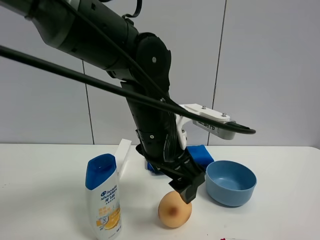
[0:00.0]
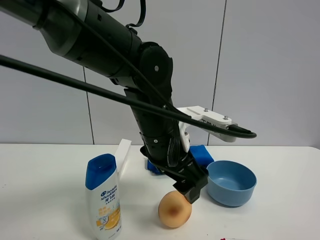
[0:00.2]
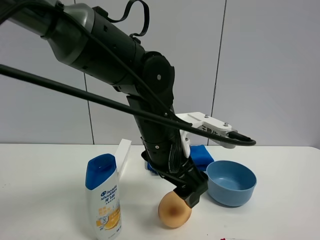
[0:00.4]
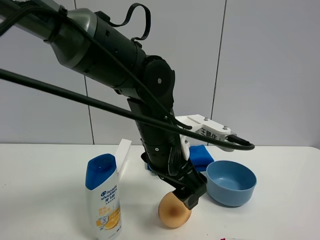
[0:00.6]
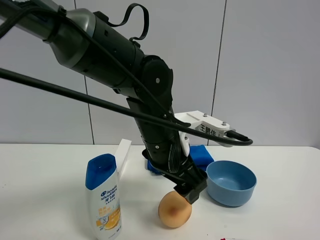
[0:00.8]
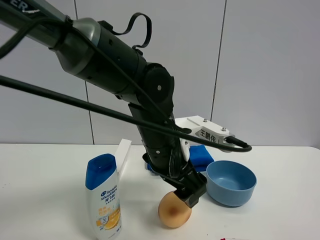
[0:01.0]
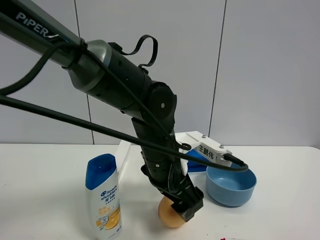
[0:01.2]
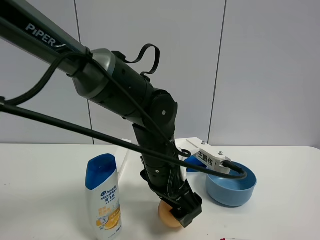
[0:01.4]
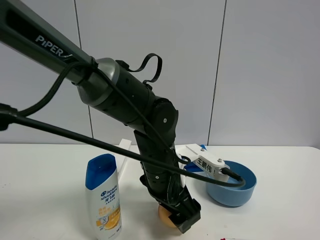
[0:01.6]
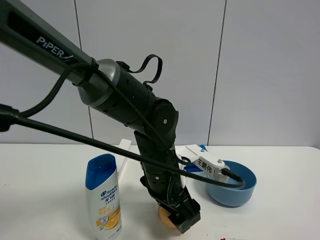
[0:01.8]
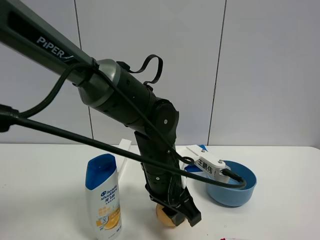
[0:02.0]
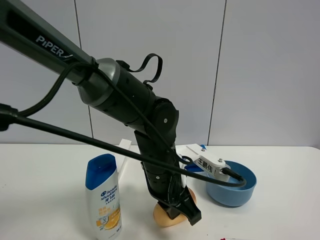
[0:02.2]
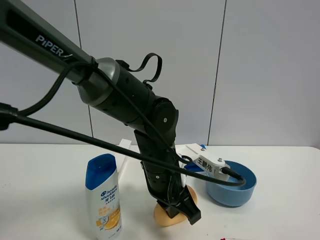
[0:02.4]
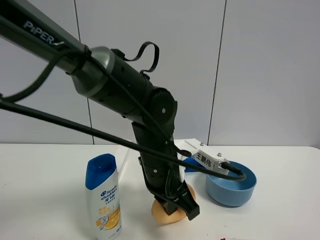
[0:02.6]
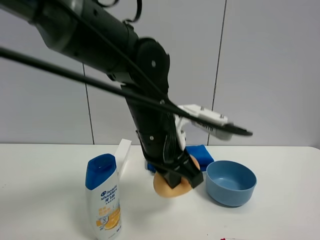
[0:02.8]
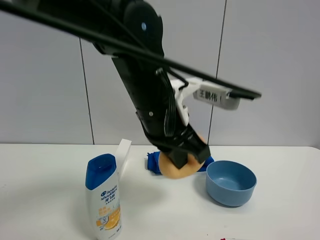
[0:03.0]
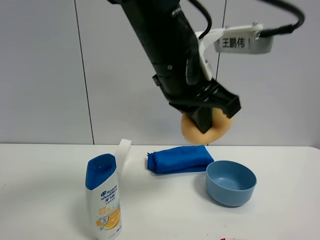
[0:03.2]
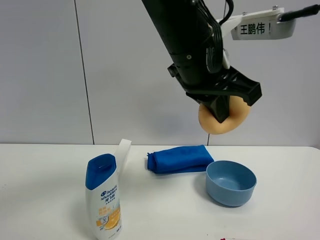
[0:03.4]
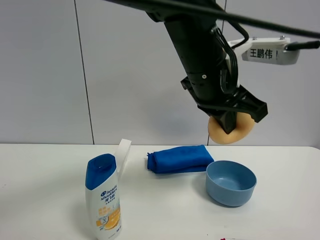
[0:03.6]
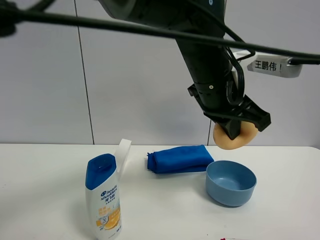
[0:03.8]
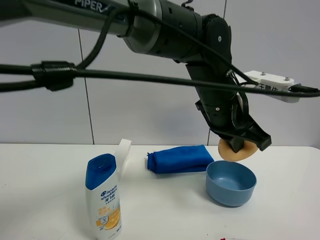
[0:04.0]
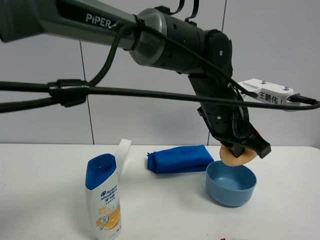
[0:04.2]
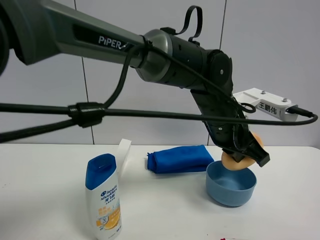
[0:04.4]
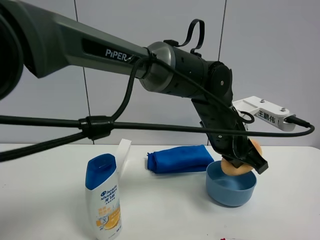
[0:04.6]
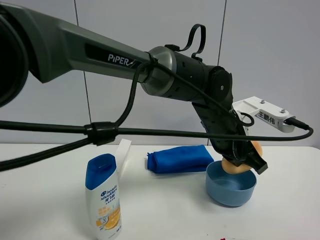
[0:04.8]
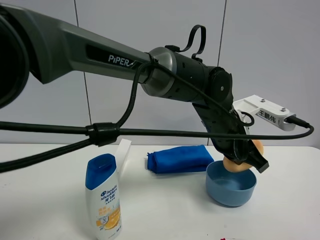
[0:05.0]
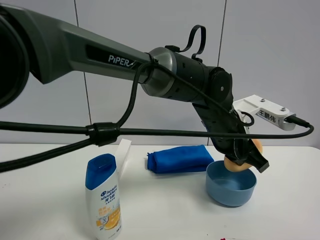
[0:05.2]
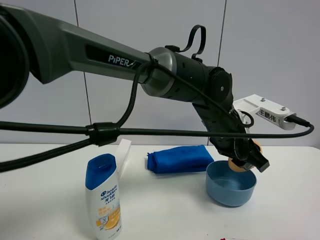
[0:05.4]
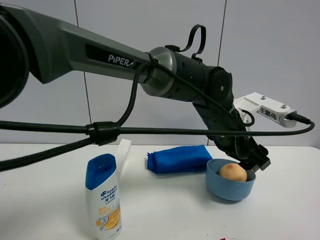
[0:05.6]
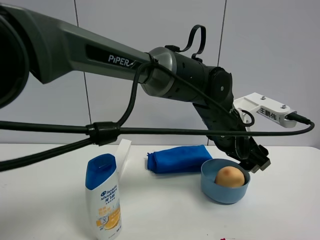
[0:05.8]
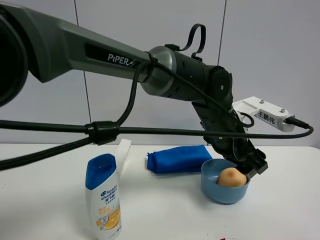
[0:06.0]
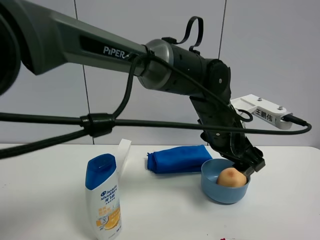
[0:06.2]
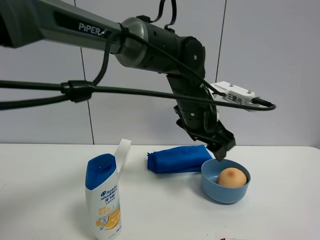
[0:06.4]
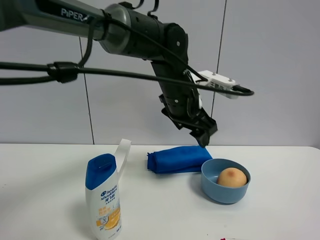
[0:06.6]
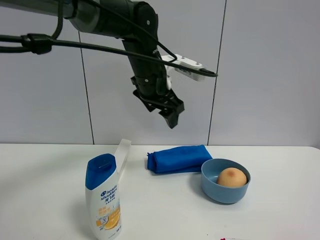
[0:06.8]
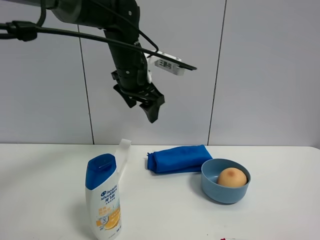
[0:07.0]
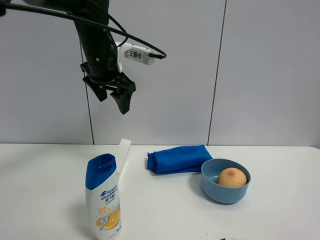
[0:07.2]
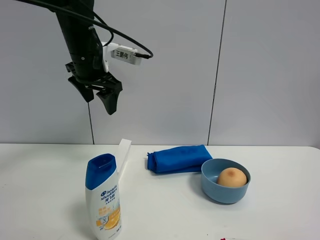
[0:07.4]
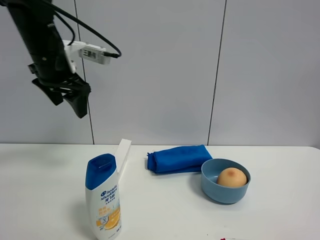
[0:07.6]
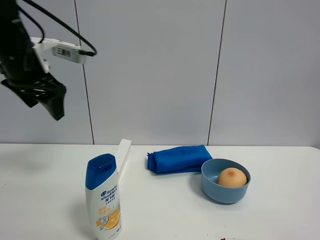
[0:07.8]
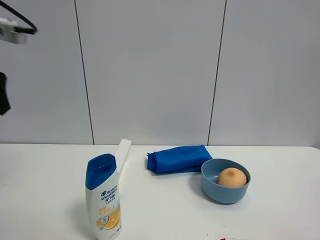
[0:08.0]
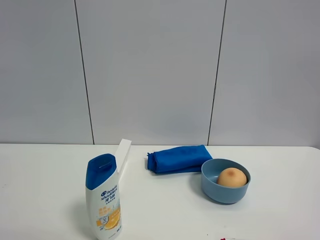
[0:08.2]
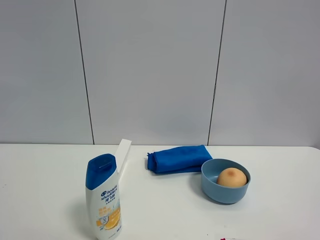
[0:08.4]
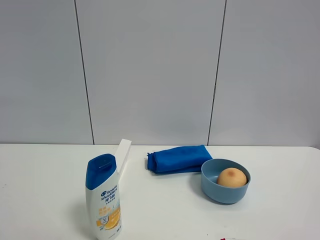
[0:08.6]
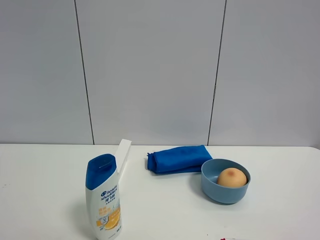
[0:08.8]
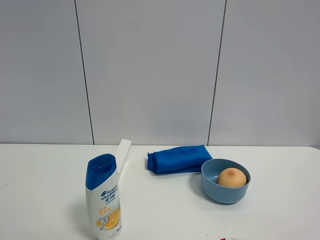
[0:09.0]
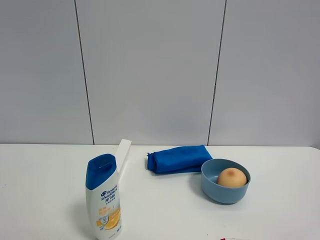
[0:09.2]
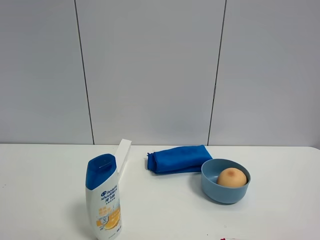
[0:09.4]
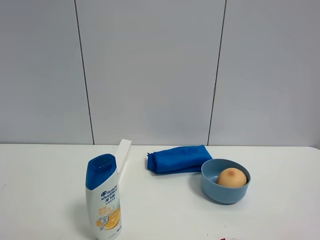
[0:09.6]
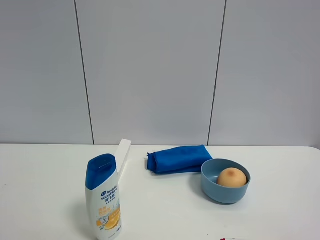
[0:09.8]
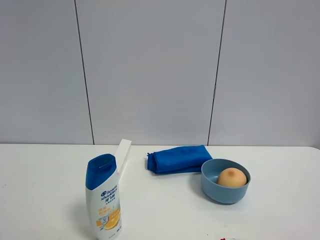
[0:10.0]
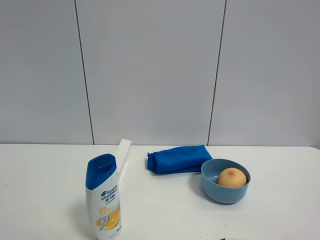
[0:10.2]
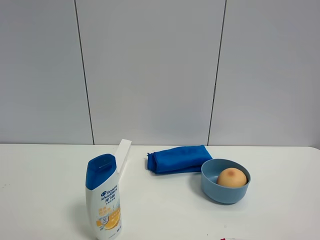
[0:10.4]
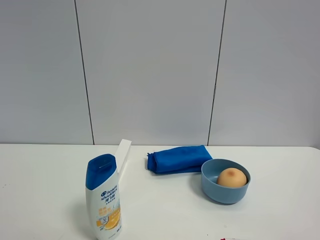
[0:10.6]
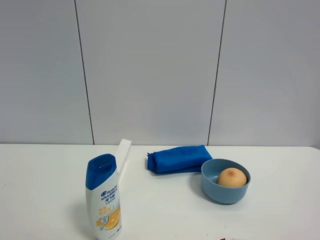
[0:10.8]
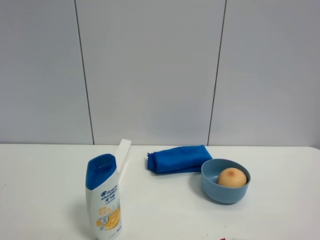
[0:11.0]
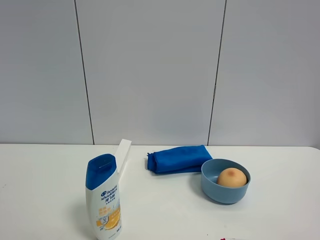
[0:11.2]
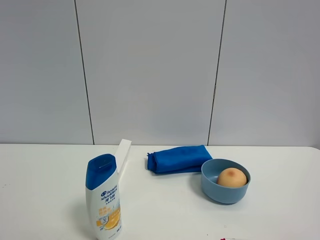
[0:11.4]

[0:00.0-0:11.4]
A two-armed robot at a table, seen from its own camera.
Task of the whole recording: the gripper move the object.
Step, 0:00.0 to 0:02.0: Grasp the egg yolk pastry with the left gripper.
Step, 0:02.2 to 0:05.4: Place the egg yolk pastry into the blue bowl with the left gripper.
0:00.0 to 0:01.4: The left gripper is displaced downward by roughly 5 cm.
0:01.4 to 0:02.8: The left gripper is displaced upward by about 10 cm, and closes up.
0:02.8 to 0:04.2: The left gripper is displaced to the right by about 10 cm.
0:04.2 to 0:05.6: The left gripper opens up.
0:05.6 to 0:07.2: The left gripper shifts some 25 cm to the left and upward.
0:07.2 to 0:08.6: The left gripper moves backward and to the left, about 40 cm.

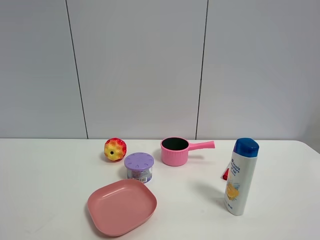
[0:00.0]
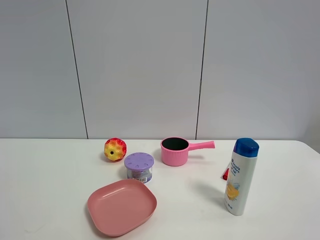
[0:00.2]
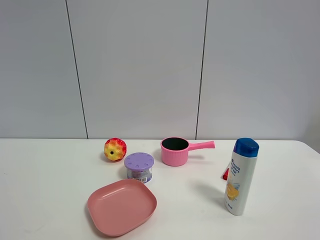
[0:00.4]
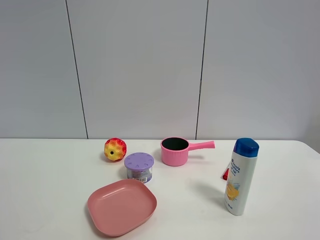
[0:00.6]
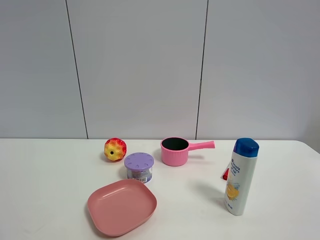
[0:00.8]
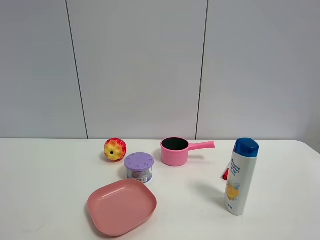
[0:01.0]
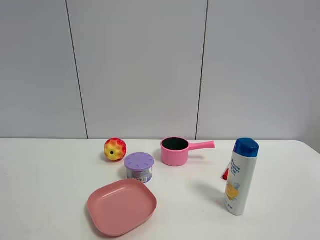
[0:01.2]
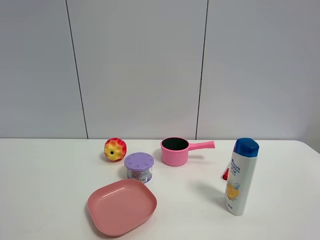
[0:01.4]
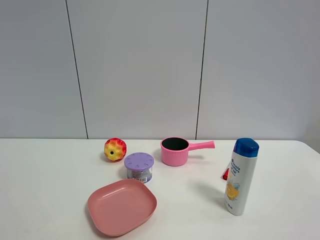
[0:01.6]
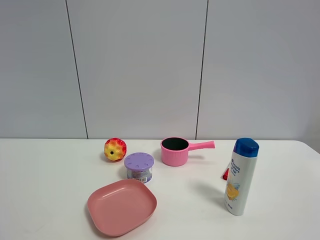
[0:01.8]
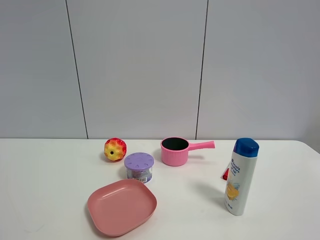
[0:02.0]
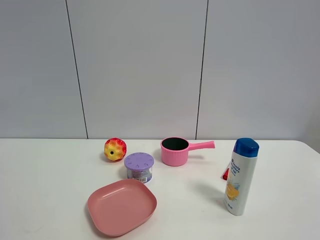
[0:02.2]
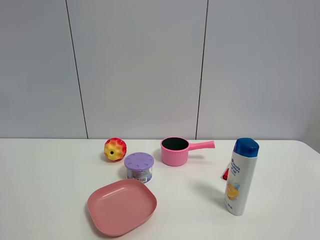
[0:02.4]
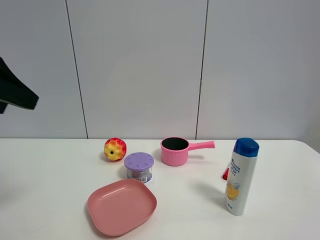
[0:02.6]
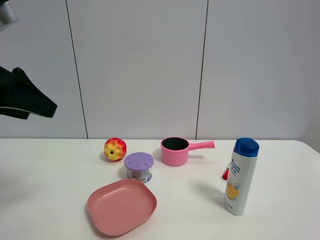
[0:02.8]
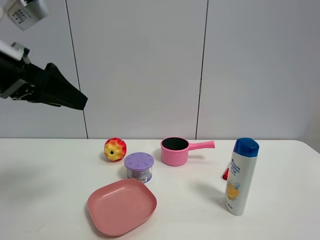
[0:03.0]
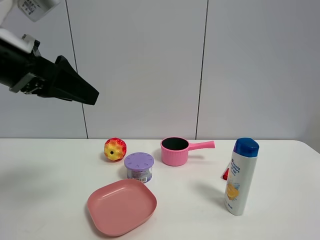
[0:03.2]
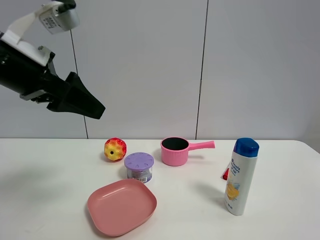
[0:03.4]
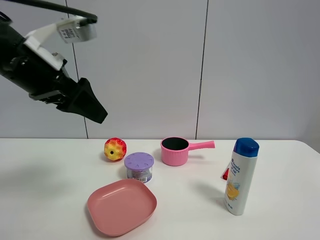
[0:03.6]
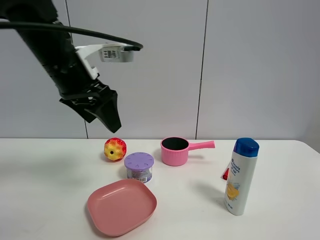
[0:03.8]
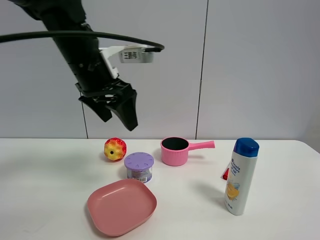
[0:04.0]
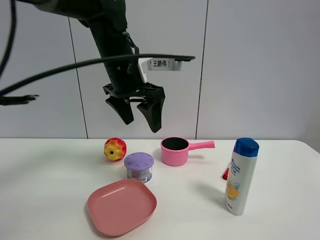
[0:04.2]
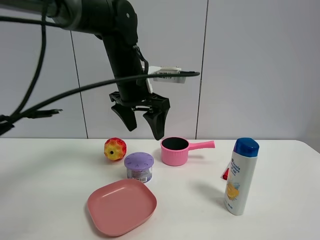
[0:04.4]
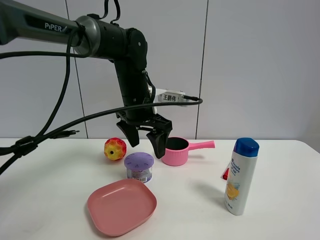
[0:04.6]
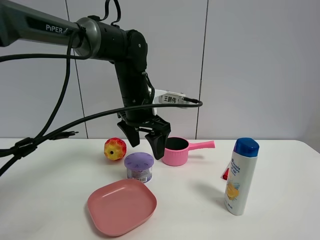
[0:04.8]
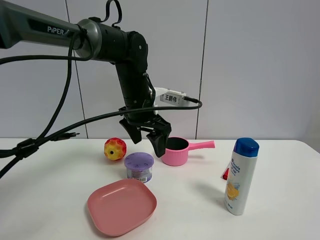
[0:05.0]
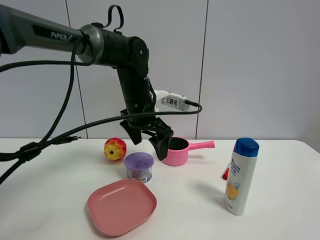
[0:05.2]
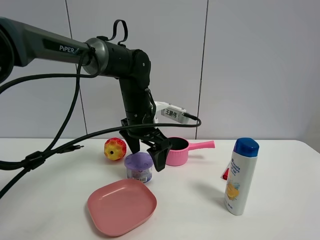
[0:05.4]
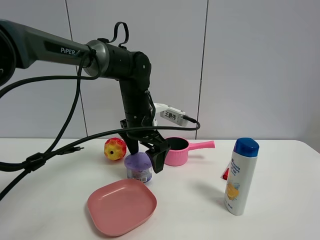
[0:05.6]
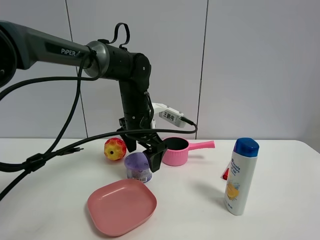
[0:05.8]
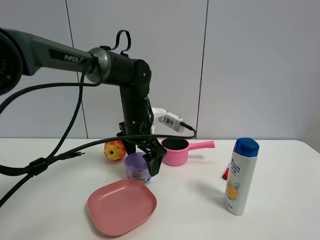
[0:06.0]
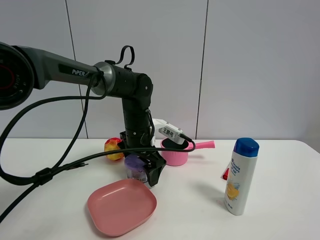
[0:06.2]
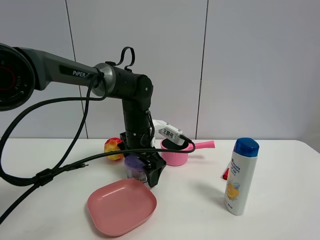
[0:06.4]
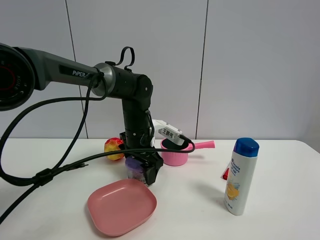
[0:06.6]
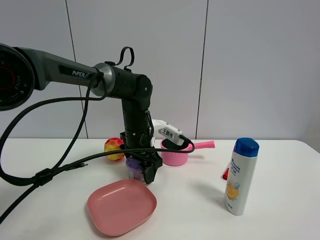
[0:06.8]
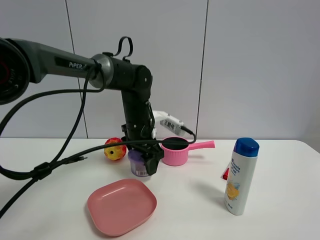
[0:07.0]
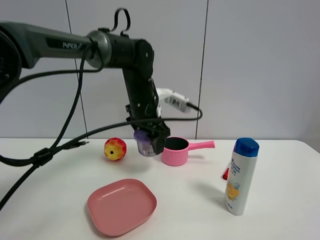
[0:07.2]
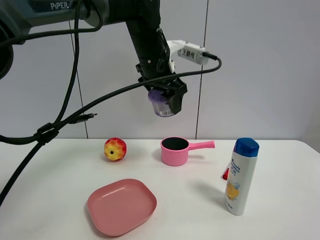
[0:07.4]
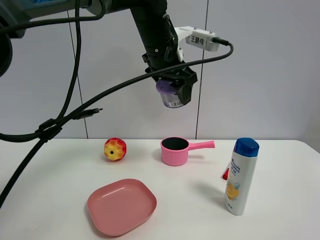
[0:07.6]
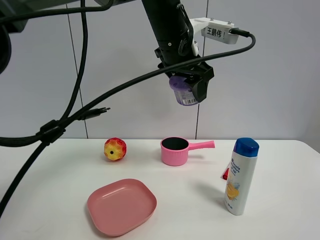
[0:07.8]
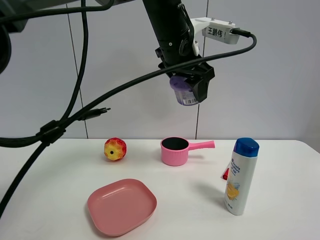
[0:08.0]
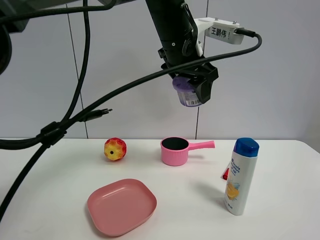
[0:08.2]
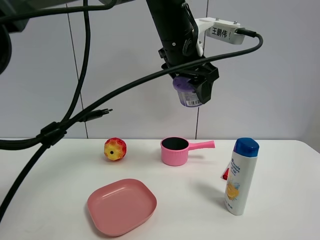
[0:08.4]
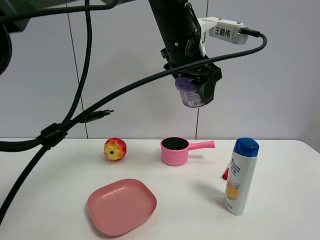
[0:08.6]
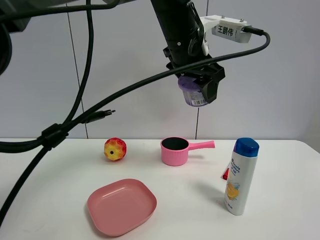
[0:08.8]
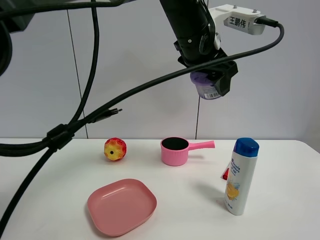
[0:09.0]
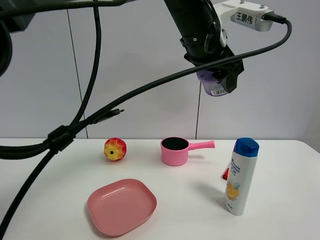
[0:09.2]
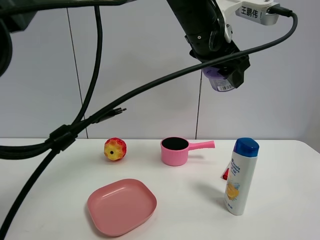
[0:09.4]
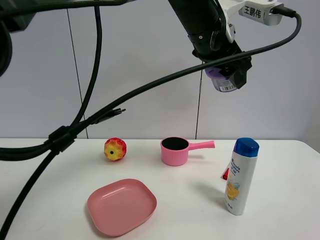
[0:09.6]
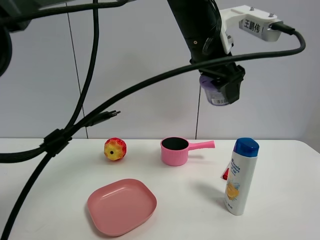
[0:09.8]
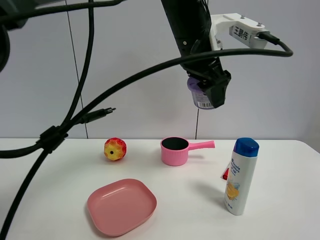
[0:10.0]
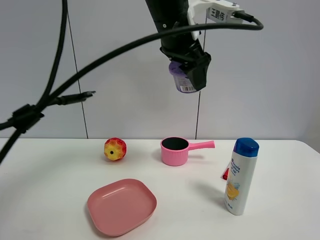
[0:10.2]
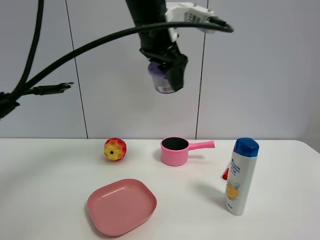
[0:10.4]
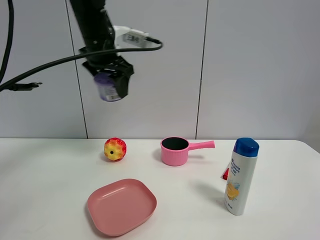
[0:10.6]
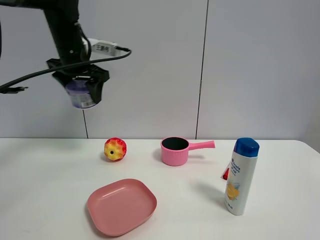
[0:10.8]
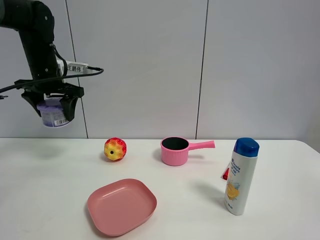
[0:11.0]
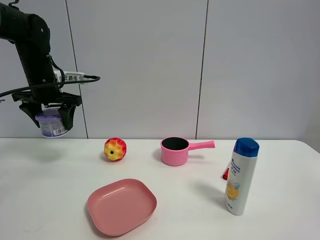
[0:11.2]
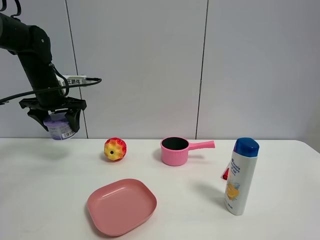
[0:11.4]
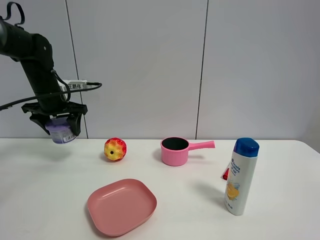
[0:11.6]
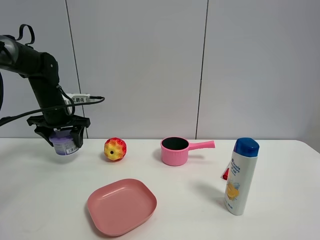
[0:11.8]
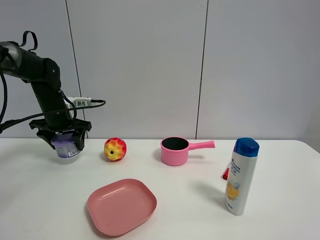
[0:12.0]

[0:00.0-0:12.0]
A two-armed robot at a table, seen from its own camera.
Task of the whole recording: the gripper move the object.
Step, 0:00.0 to 0:06.8: Grasp the Incense box with the left gripper.
0:01.6 to 0:03.0: The left gripper moves forward, about 25 cm.
0:03.0 to 0:04.4: The left gripper shifts roughly 25 cm to the right and forward.
0:04.4 to 0:06.0: The left gripper shifts some 10 cm downward, and opens.
0:06.0 to 0:07.6: The left gripper travels upward by approximately 15 cm, and closes.
0:07.6 to 0:09.0: The left gripper shifts some 5 cm to the right.
0:09.0 to 0:10.4: The left gripper moves to the left, some 10 cm.
0:10.4 to 0:12.0: The left gripper shifts some 30 cm to the left and downward.
